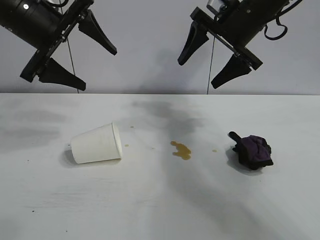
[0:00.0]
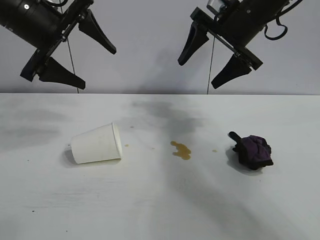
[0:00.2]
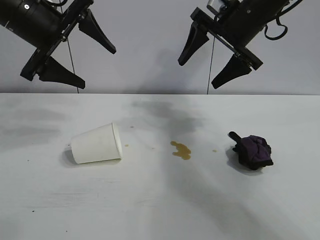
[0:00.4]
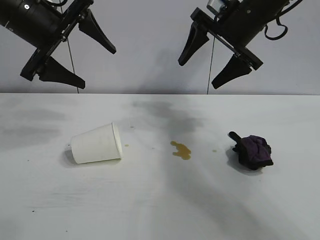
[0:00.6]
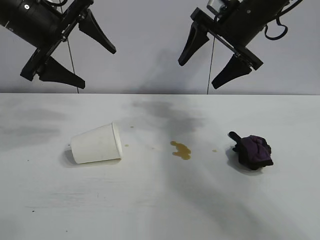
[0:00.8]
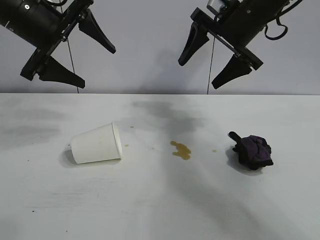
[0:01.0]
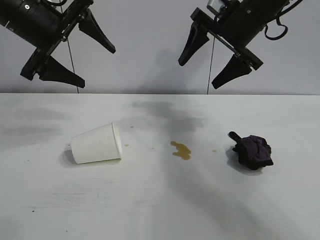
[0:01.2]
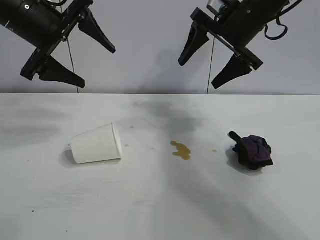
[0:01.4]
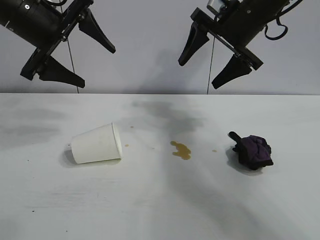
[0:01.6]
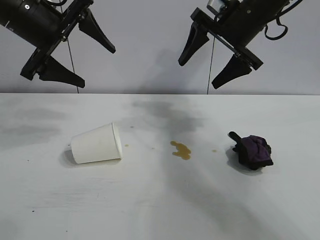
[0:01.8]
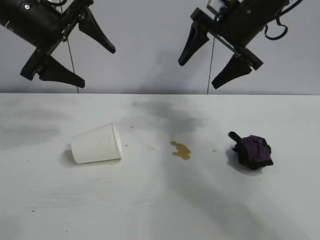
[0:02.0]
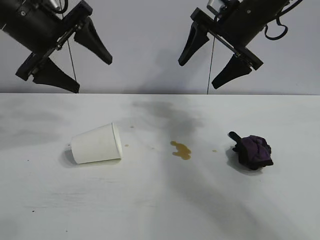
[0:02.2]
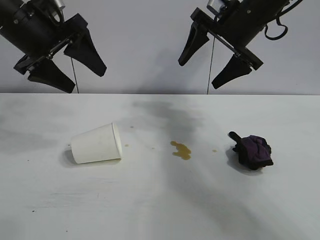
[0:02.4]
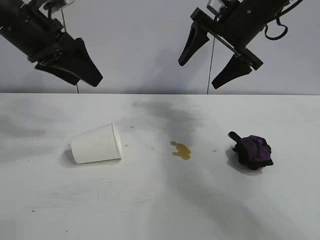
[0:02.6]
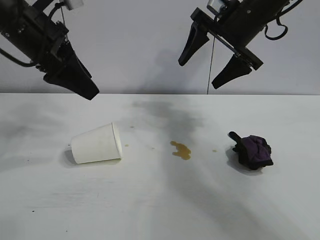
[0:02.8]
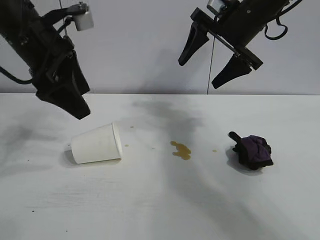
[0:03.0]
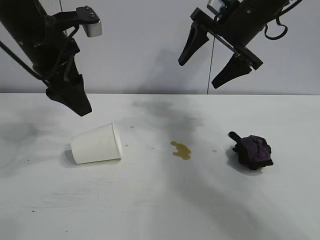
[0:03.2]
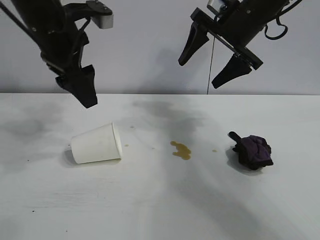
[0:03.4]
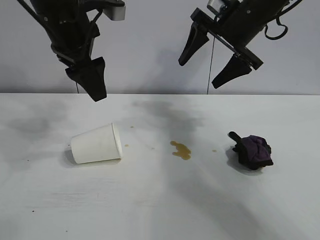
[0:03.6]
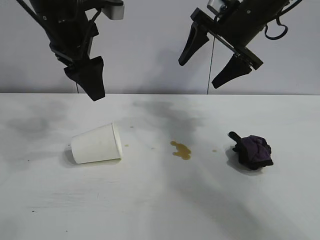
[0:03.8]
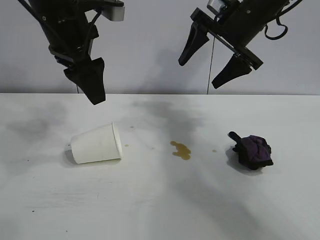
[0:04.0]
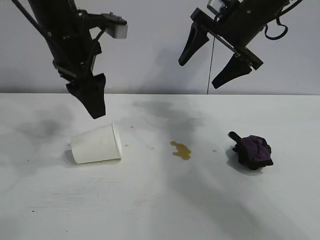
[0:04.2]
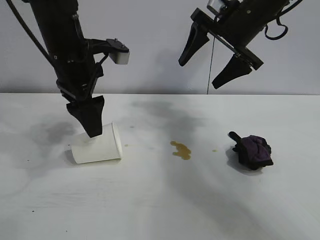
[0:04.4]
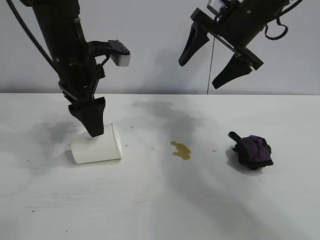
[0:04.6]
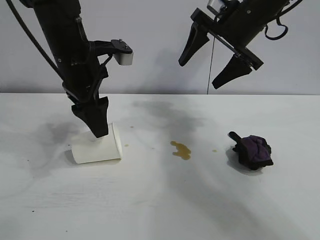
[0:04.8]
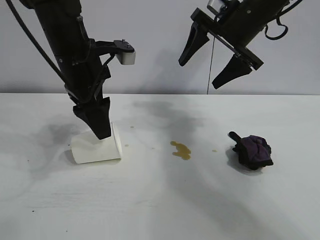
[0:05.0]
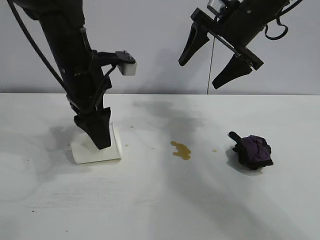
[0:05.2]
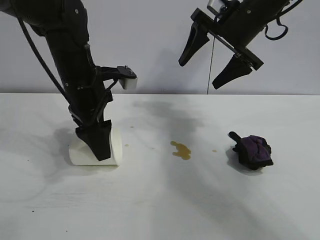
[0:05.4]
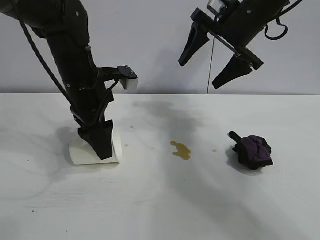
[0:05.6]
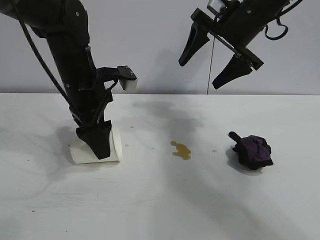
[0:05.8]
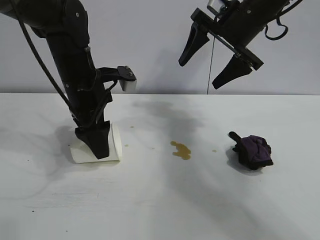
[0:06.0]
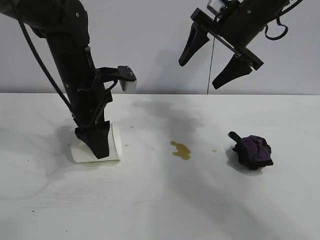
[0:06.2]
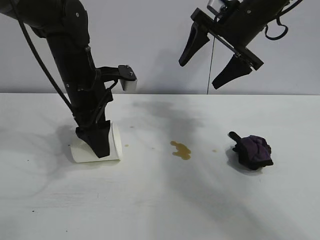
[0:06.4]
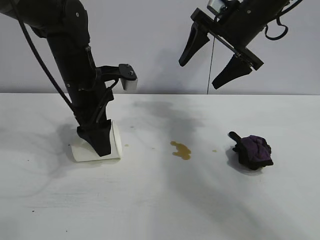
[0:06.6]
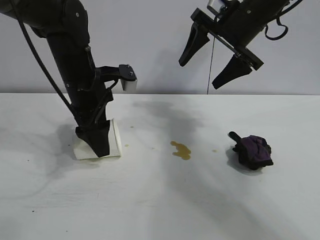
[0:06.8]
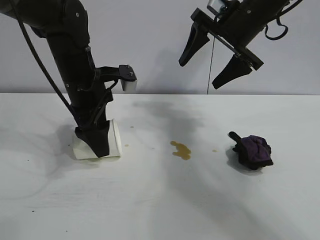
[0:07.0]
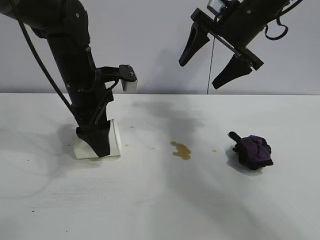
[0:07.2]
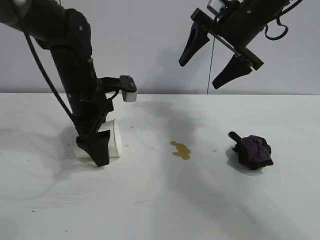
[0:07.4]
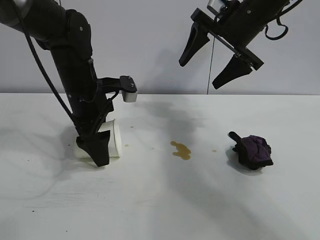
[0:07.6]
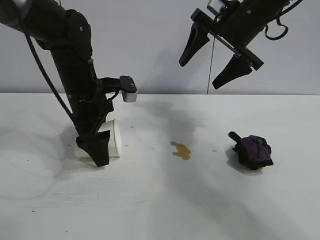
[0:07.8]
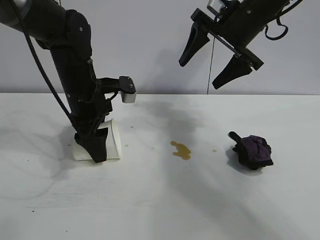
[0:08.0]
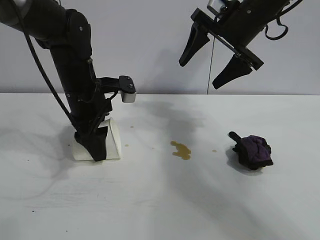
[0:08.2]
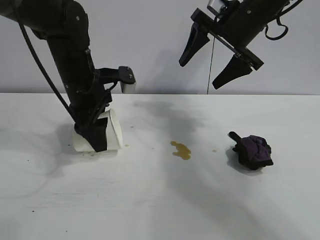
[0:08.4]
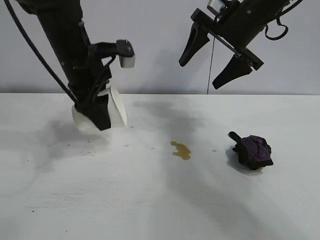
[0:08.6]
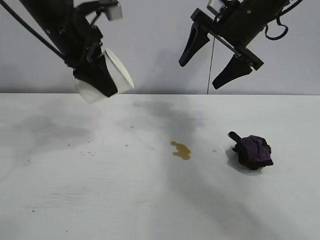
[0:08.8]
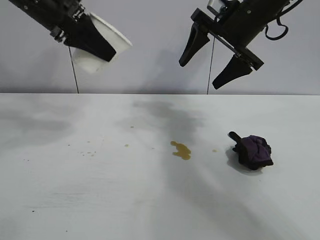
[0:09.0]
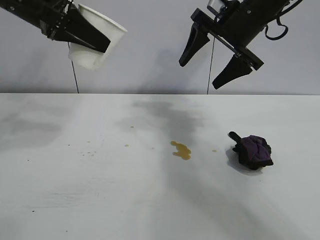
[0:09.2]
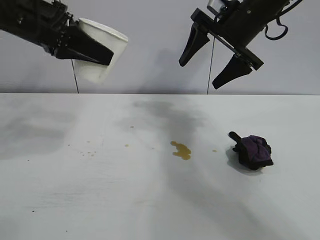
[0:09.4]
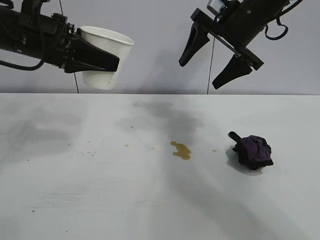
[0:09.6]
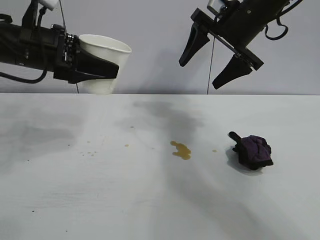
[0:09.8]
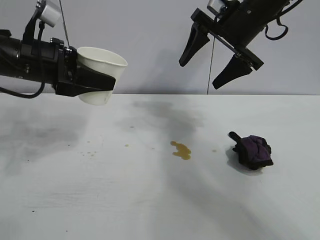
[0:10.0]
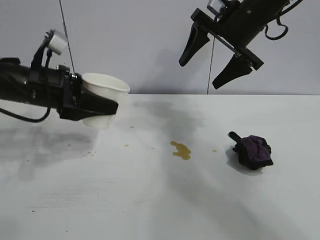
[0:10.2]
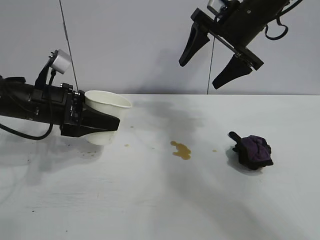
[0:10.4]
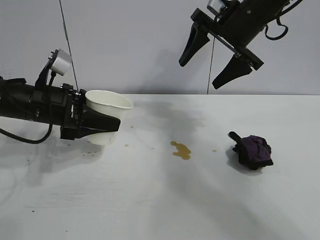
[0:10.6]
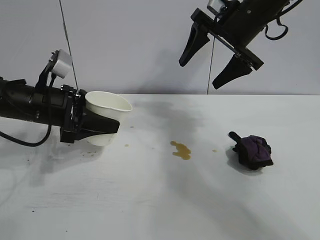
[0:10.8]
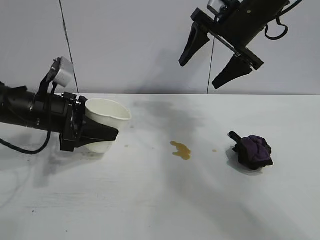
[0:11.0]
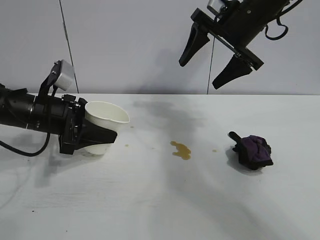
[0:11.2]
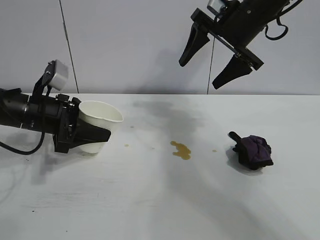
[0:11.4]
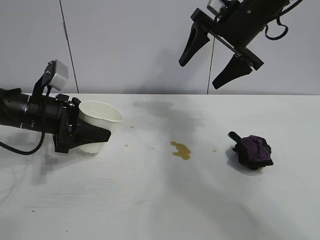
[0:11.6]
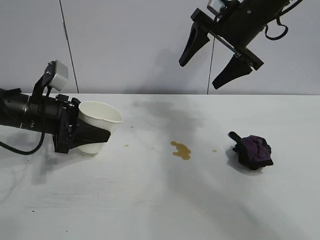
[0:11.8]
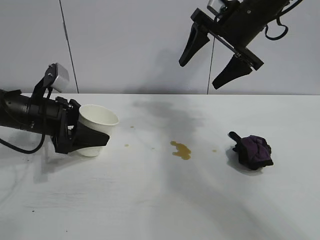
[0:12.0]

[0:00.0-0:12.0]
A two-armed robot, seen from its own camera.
Task of the whole recording: the left gripper pick up the fallen cup and place it upright, the right gripper grasp the black rag and wipe the stain on the table, the right gripper put the black rag back in its original position.
Step, 0:00.0 to 0:08.2: Grasp the paper cup with left gripper.

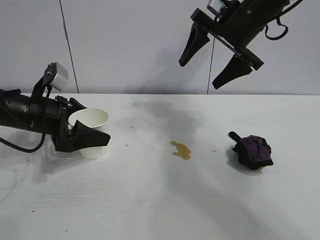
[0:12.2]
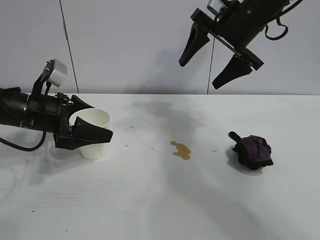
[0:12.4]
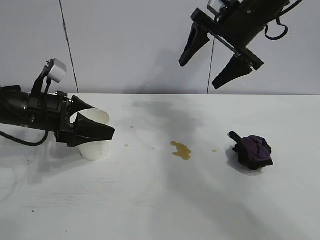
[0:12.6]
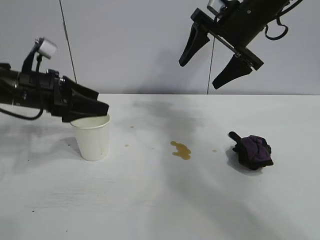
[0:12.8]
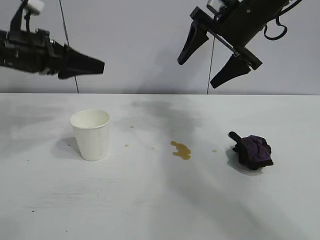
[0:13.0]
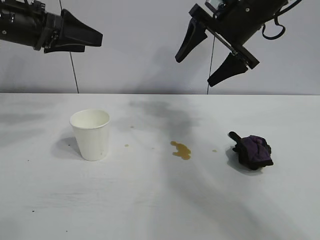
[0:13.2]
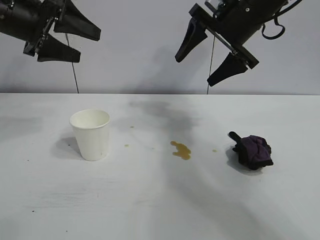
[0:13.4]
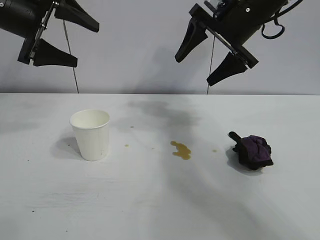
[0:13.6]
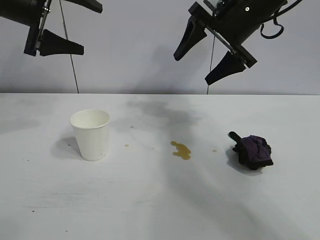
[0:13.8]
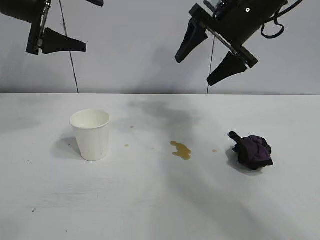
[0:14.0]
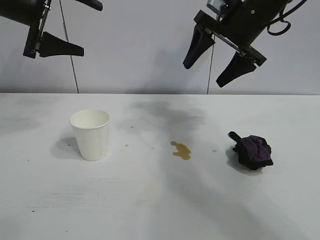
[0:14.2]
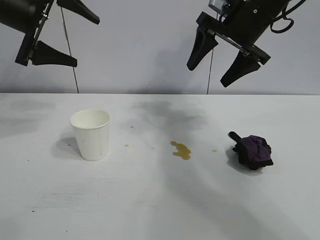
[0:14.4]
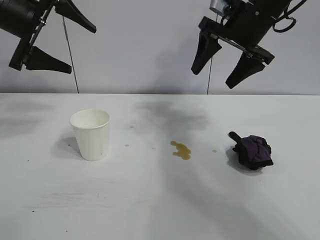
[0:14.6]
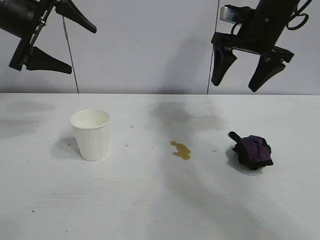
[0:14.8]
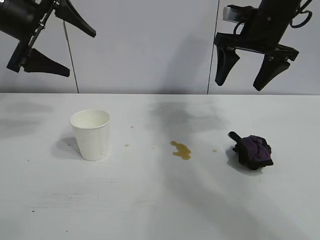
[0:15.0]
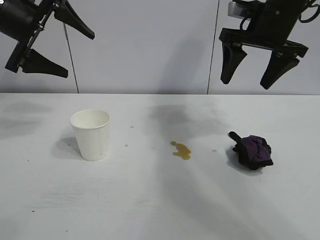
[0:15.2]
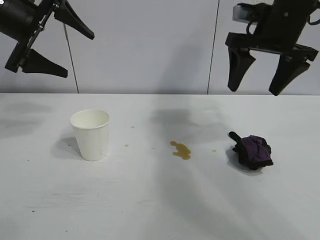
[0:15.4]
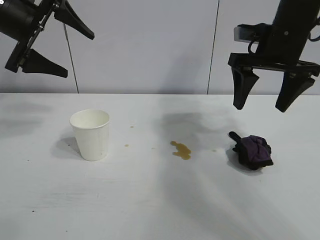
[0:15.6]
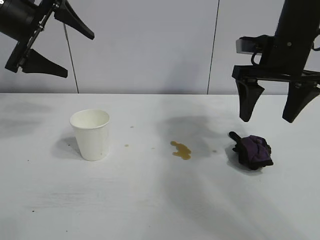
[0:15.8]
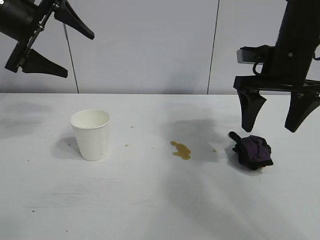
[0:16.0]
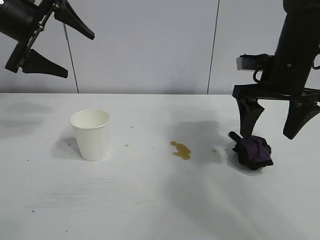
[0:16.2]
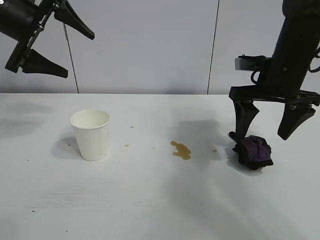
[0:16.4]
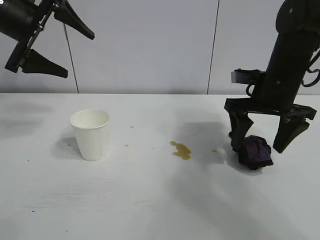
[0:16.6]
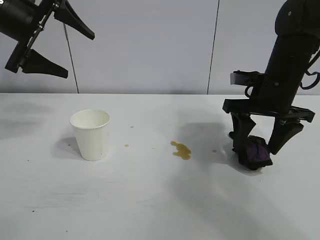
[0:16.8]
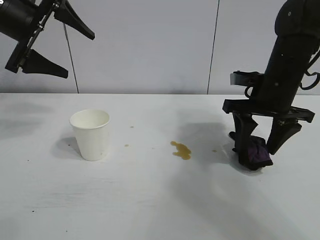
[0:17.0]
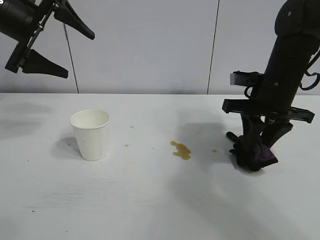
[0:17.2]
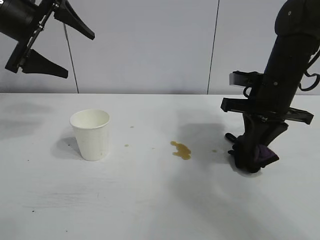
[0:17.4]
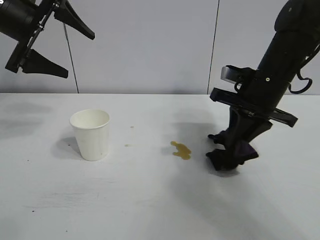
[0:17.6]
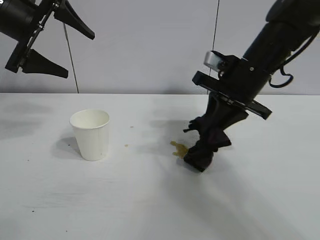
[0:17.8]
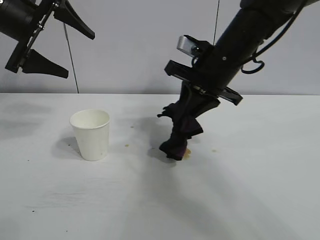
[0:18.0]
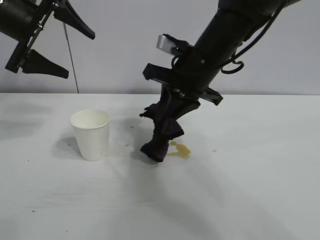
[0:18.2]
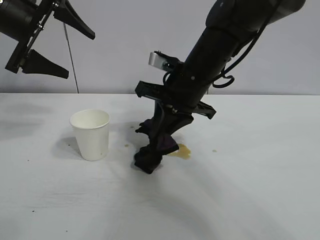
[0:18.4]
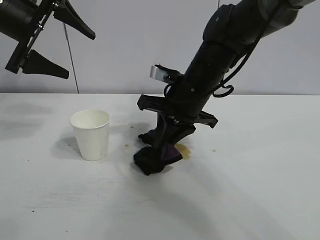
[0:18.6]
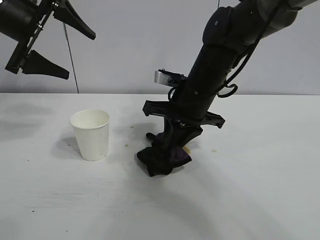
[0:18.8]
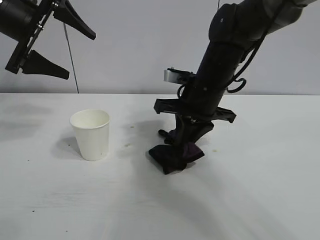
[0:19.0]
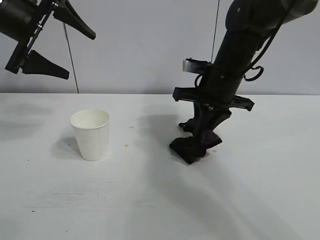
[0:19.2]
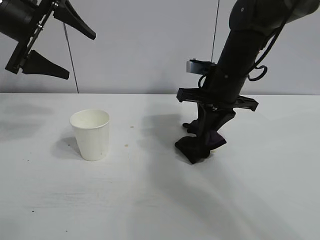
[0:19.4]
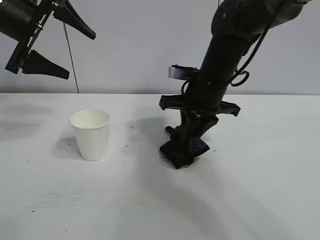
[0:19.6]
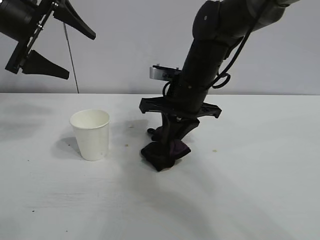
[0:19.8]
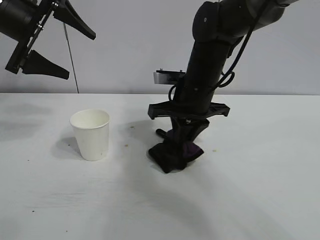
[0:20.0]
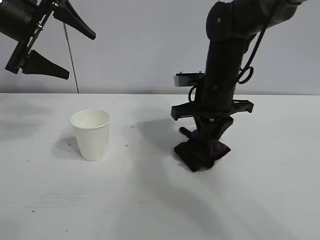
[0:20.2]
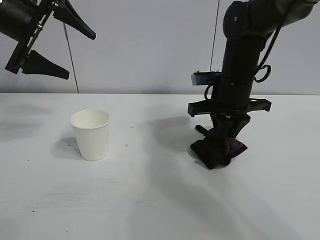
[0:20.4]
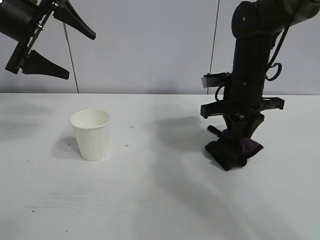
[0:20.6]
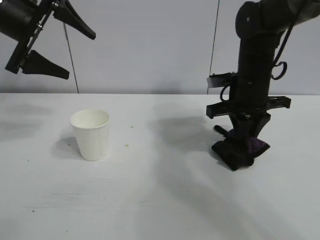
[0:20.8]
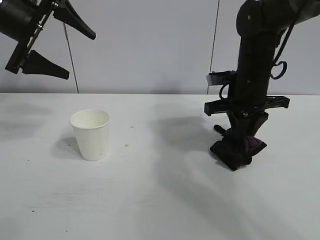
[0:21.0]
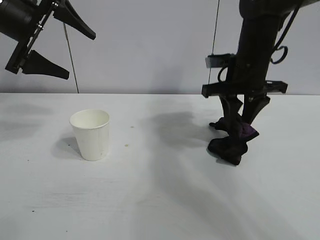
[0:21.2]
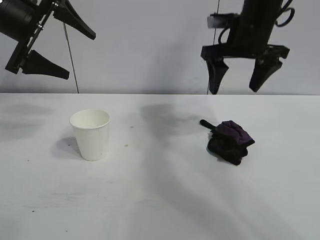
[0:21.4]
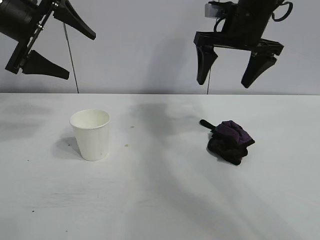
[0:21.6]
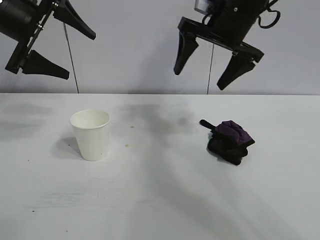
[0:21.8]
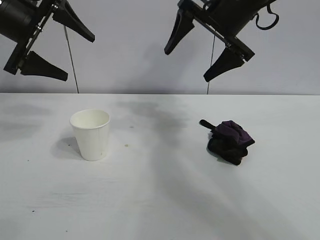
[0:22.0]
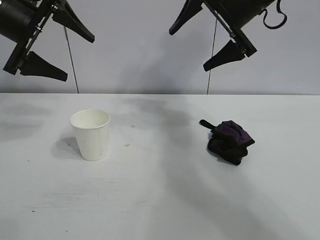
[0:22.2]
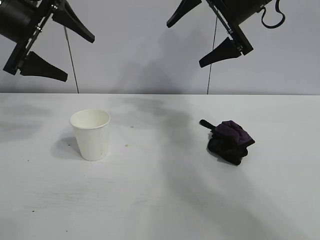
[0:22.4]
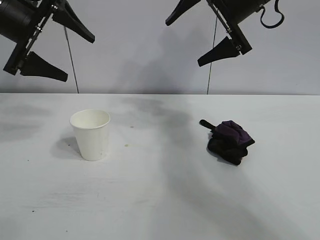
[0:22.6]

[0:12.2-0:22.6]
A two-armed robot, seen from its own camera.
Task of the whole recording: the left gripper pick up the fallen cup and place it upright, the right gripper grasp the black rag and wipe the stain on the table, the right gripper put the black rag back in its original position.
Step, 0:12.4 to 0:17.2: Grasp the rag with right gripper.
Step, 0:17.4 to 0:20.8: Wipe the stains off the table with the rag with right gripper.
Step, 0:21.0 to 0:21.2: Place the rag on the table with right gripper.
